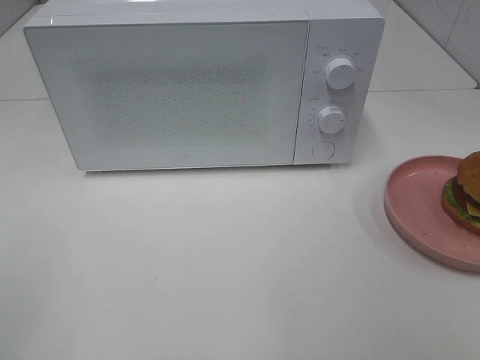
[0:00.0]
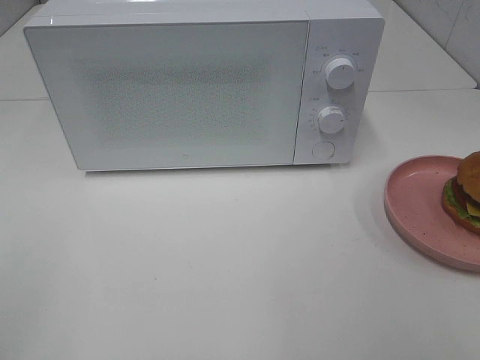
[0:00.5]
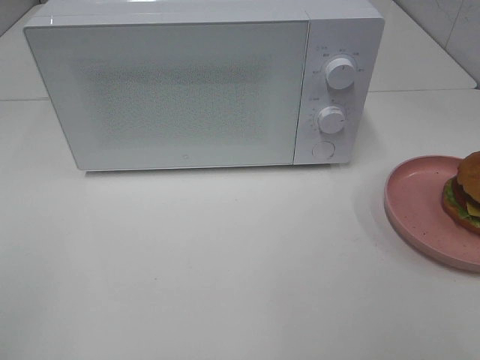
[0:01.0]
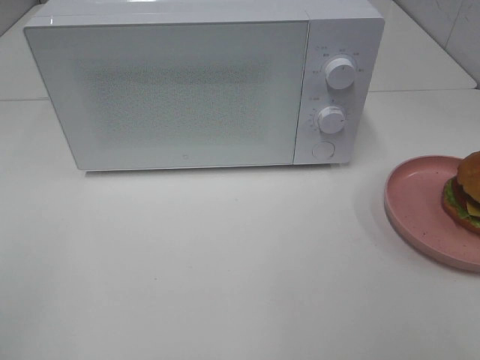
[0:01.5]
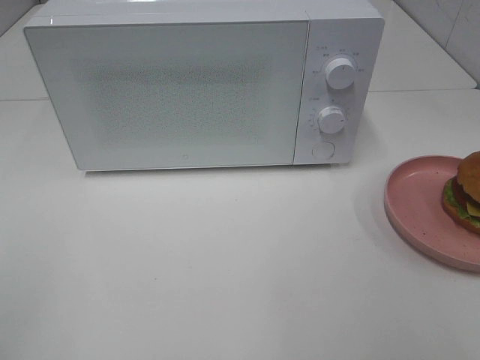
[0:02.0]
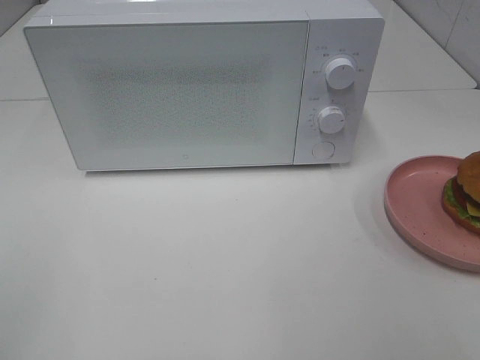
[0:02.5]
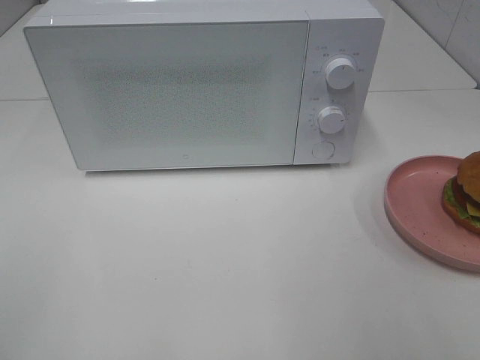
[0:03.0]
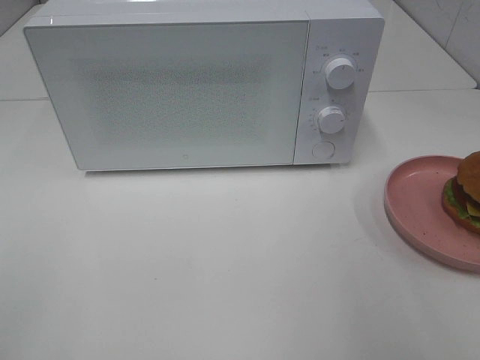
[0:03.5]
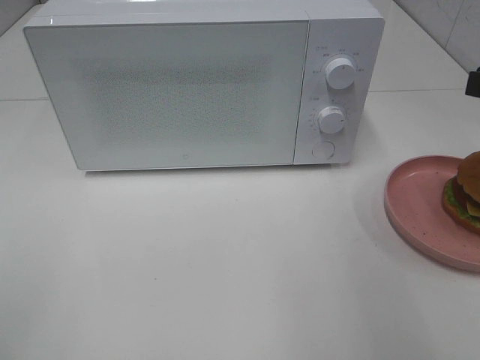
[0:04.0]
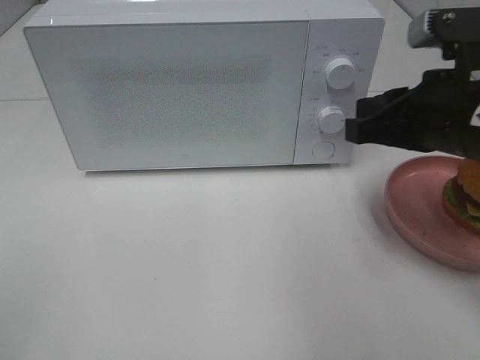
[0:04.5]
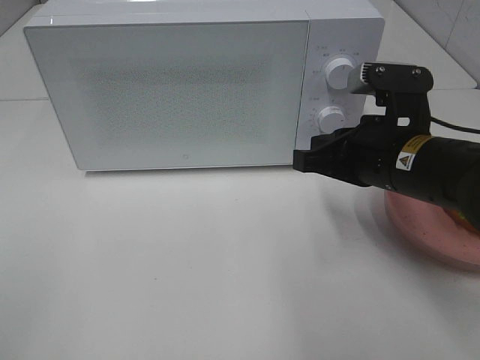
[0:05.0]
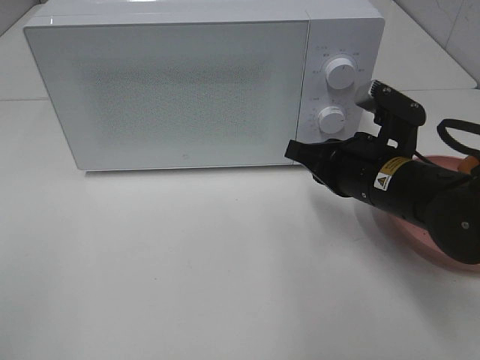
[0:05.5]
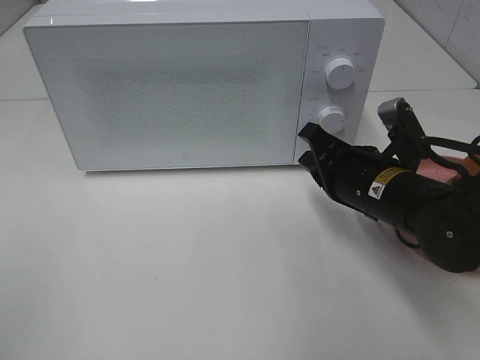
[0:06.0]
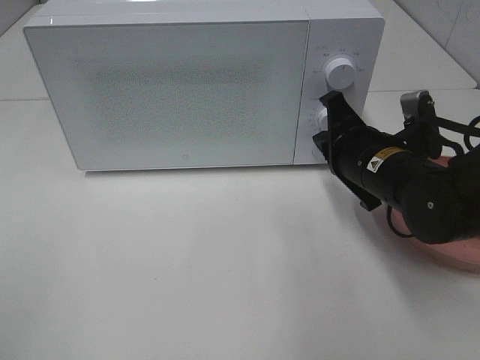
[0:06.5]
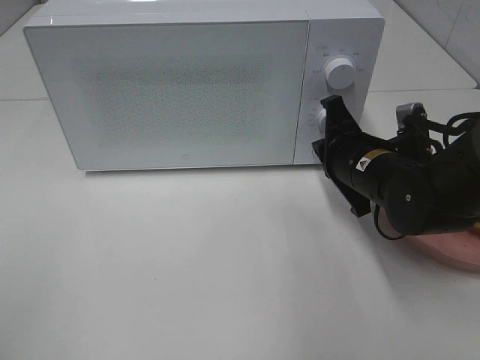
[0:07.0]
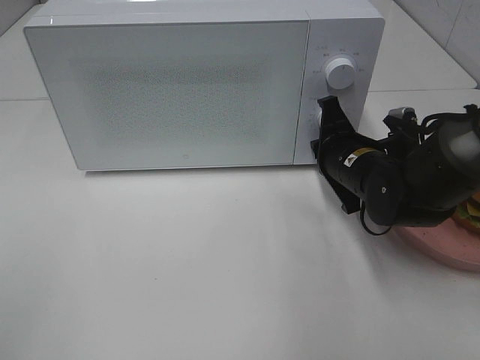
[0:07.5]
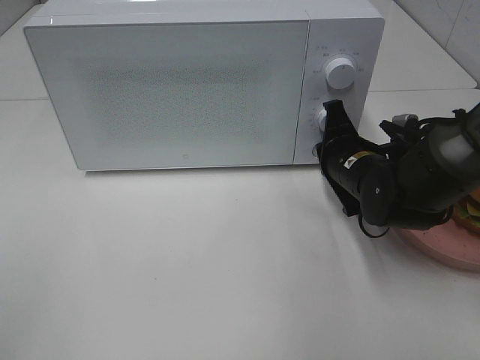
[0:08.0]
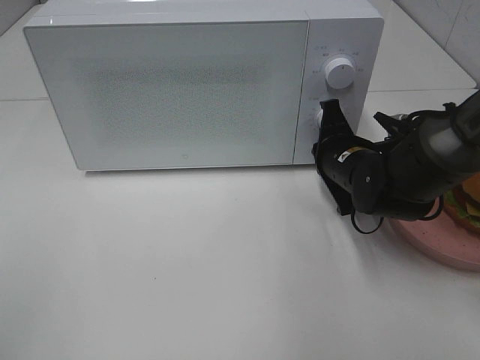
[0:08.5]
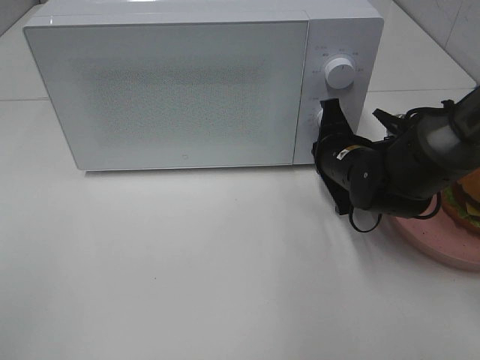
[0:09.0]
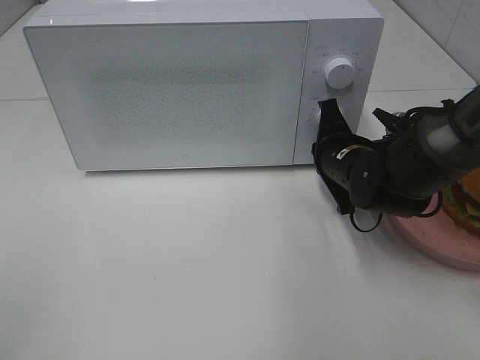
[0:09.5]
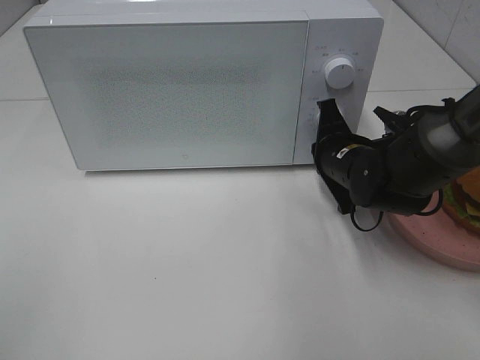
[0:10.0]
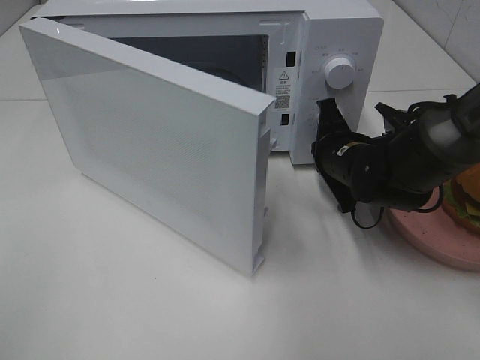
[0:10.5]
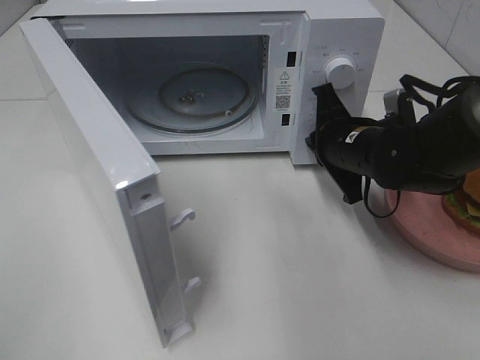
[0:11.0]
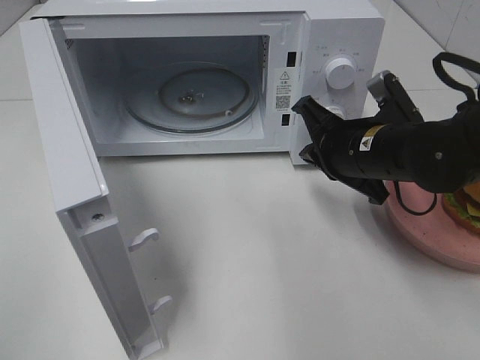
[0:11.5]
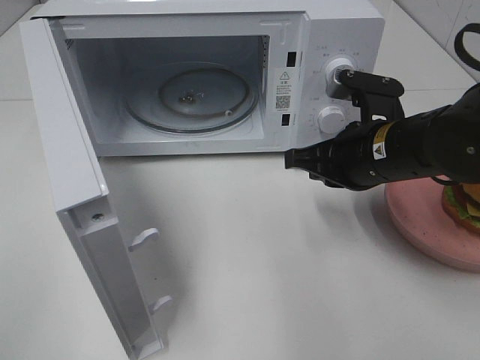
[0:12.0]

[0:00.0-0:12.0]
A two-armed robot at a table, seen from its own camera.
Task of the whole recording: Heat the burger.
Step, 0.0 to 11.0 s: Right hand: press the switch.
0.0 to 2.0 s: The two grippers keep their place.
4.0 to 6.0 s: The right gripper travels downward and to the left by about 20 cm, and closes its fingers.
6.0 to 8.0 s: The right gripper is displaced forward by about 5 cm.
8.0 to 10.0 s: The grippers stay close to where they were, moving slightly.
10.0 to 12.0 s: The right gripper goes approximately 10 cm backward and upward.

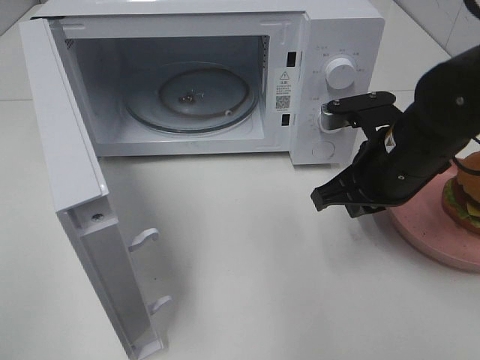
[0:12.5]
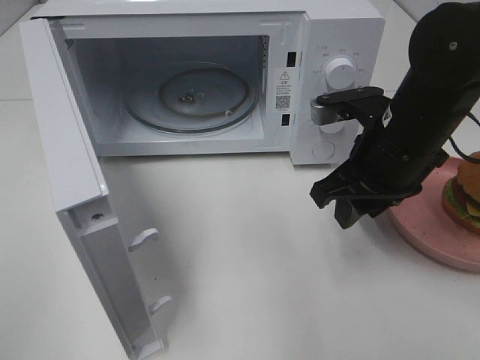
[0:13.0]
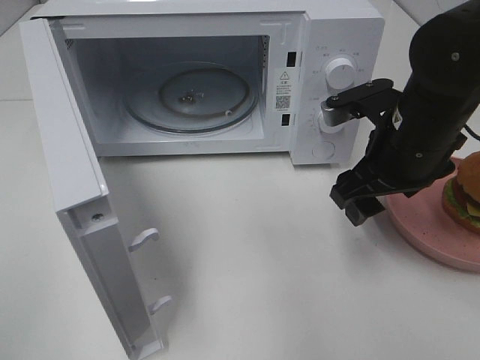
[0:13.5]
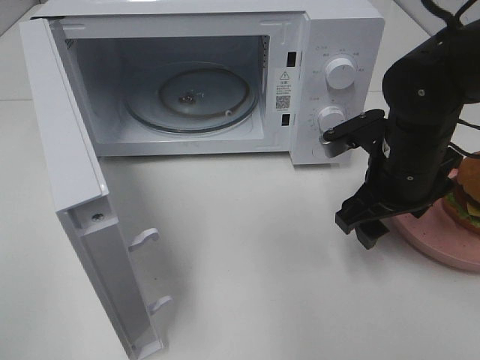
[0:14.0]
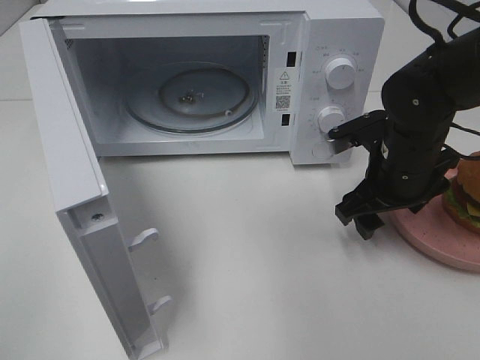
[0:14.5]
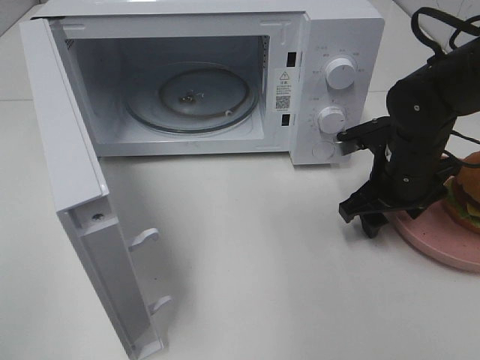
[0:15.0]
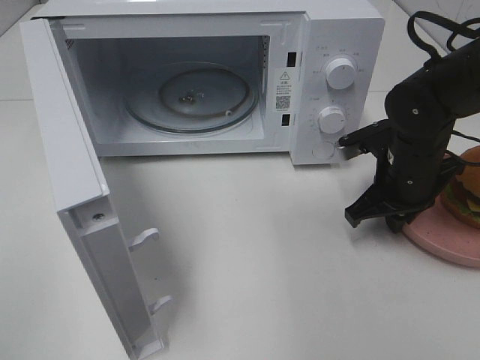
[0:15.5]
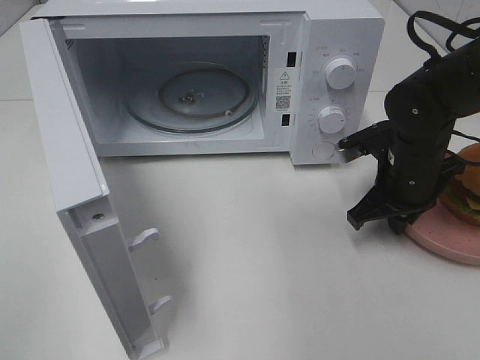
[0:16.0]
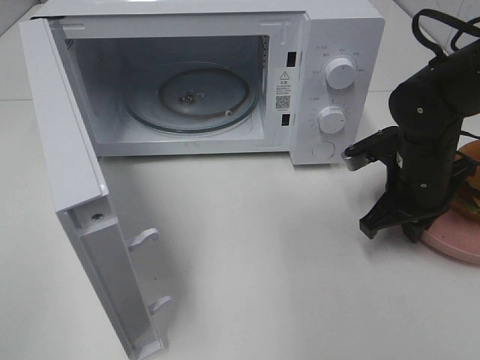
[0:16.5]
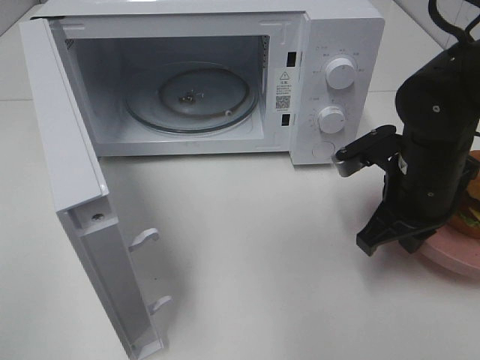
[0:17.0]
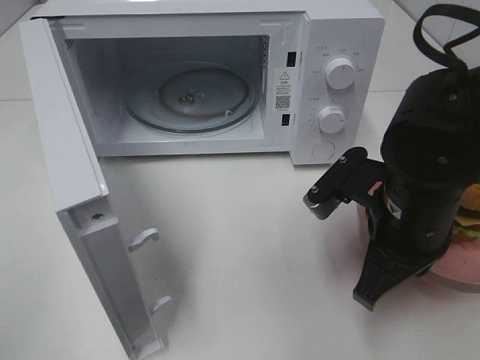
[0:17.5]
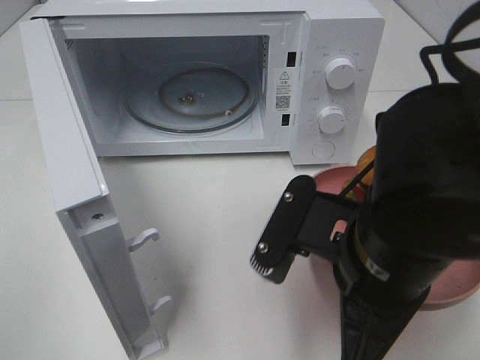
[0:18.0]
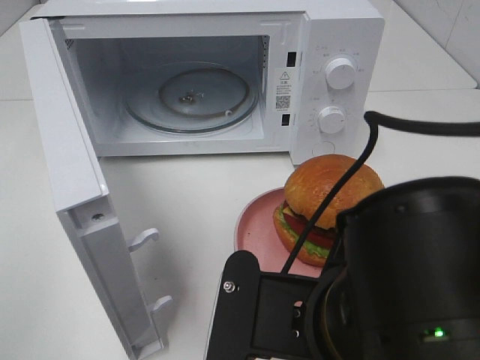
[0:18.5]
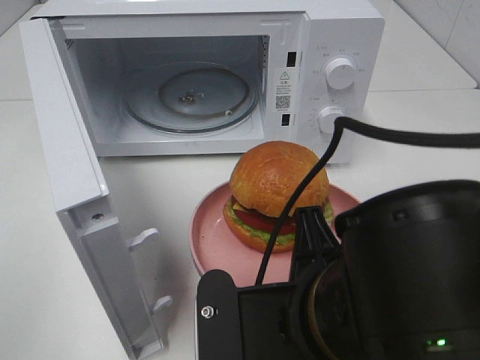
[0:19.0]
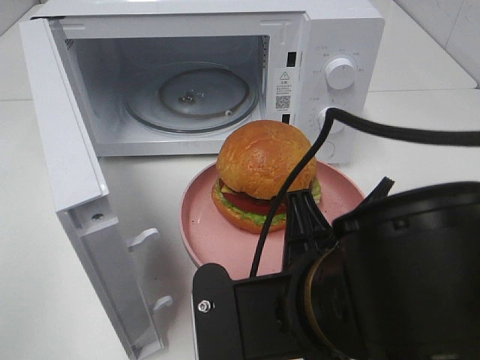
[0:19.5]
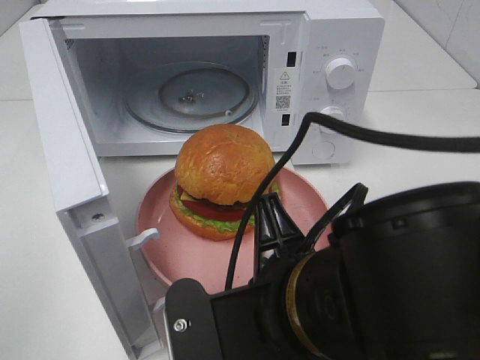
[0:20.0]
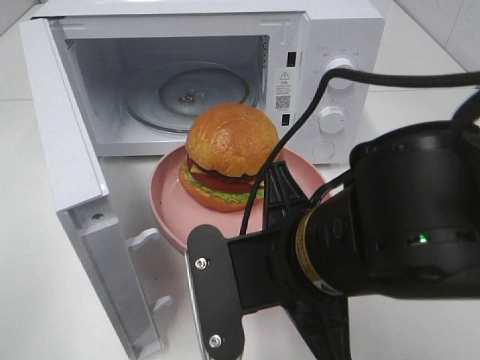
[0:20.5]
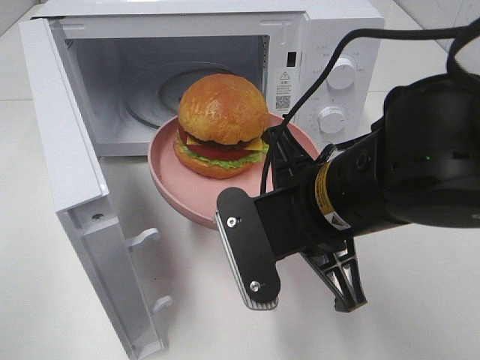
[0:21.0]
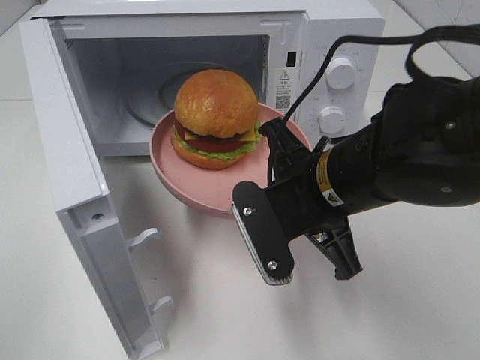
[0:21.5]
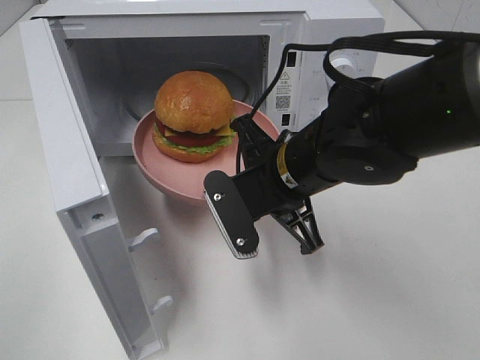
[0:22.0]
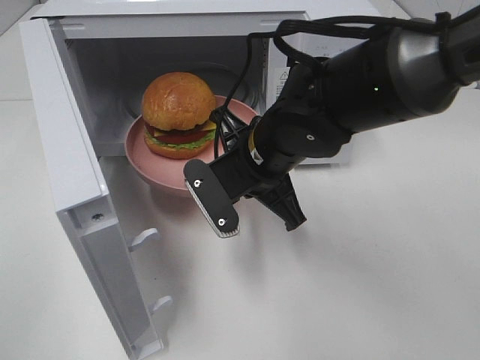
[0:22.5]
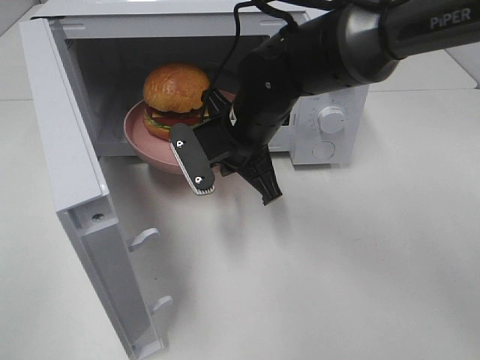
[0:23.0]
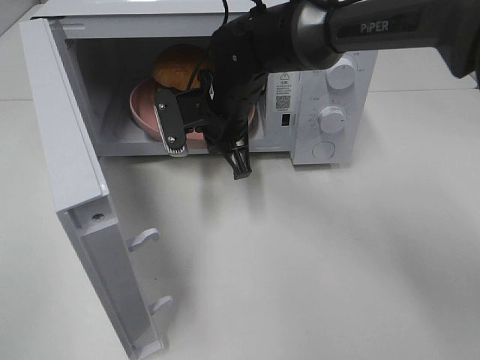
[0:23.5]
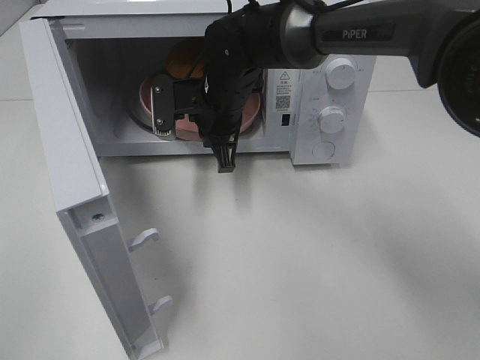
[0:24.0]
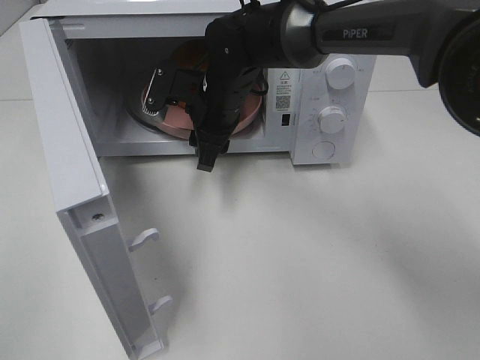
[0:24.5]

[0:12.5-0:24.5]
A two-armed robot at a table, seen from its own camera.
Task of the whole recording: Heat the burger.
Step, 12.5 to 15.0 s: Right hand: grab the plate with the hamburger.
Step, 15.5 to 24.0 s: Right hand: place the plate in the microwave.
12.5 to 14.5 s: The right gripper changes place by about 5 cm, and opens.
14.5 to 16.5 s: The right gripper closes its fingers.
16.5 to 18.5 s: The right gripper goes roughly 25 cm backward and to the left.
20.5 to 22.5 s: The right gripper goes approximately 15 cm forward.
22.5 to 24.5 s: The right gripper is displaced forward by approximately 10 cm, and opens.

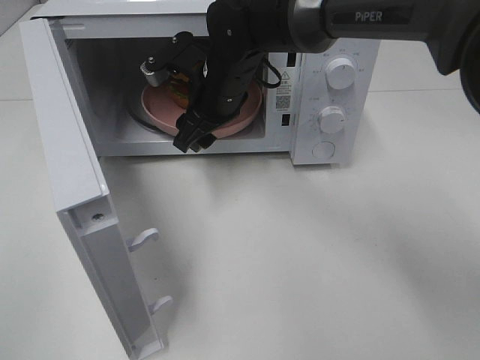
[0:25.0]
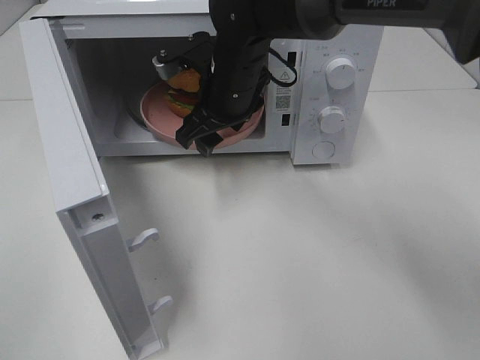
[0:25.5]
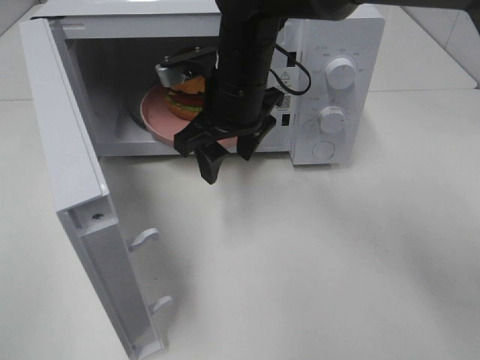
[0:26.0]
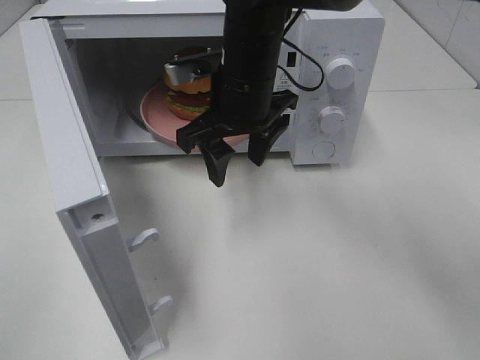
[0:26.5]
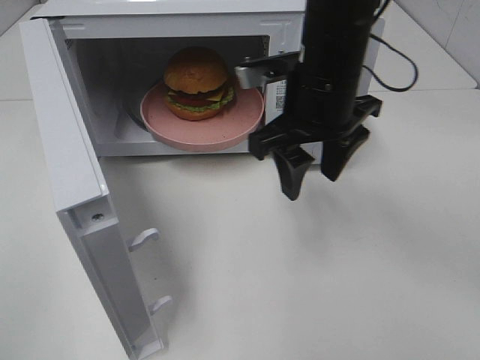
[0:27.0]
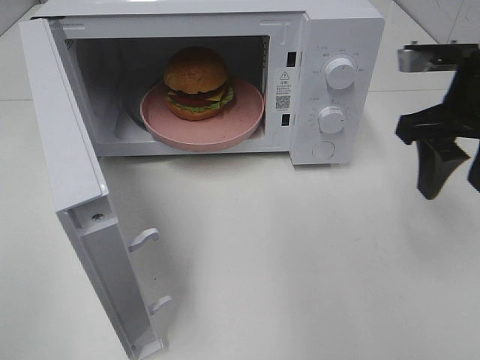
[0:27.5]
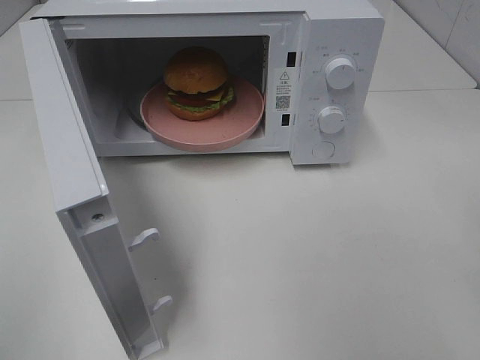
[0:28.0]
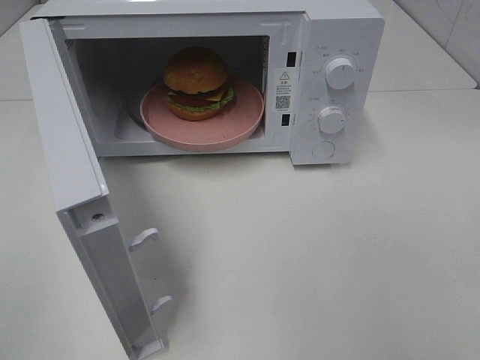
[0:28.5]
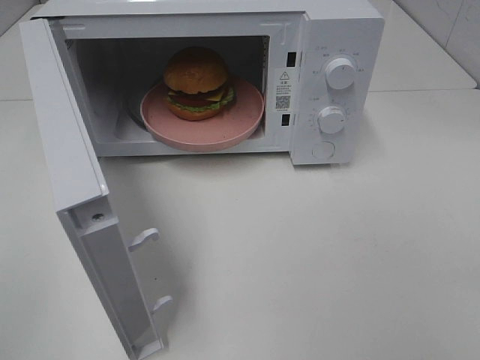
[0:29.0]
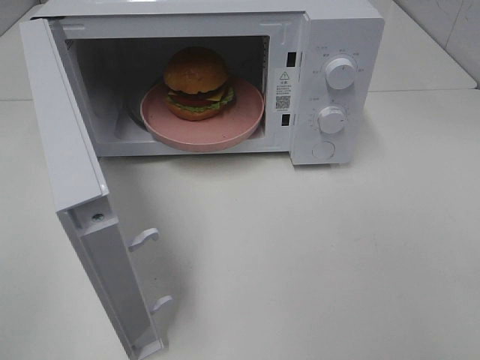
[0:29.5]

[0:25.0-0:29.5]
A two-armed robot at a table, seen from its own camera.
Task of the whole recording: Heat the burger.
25.0 to 27.0 s: The right gripper moves to the right, backward and upward, about 15 cm.
27.0 to 29.5 s: The right gripper travels backward and to the right by some 40 cm.
